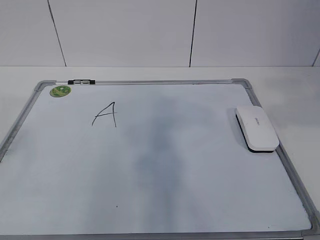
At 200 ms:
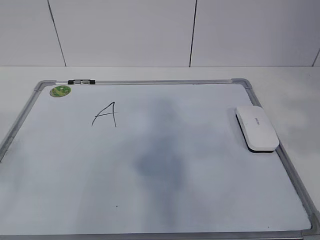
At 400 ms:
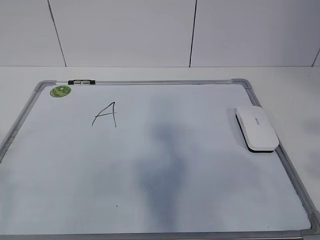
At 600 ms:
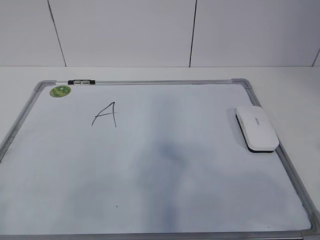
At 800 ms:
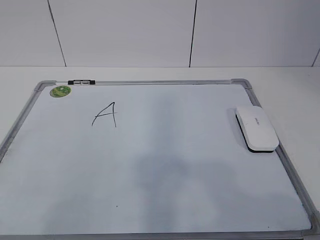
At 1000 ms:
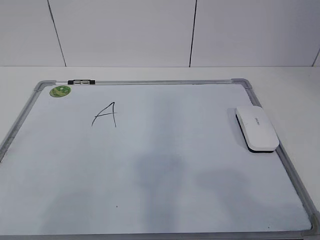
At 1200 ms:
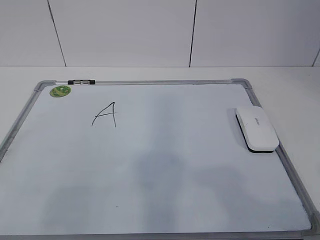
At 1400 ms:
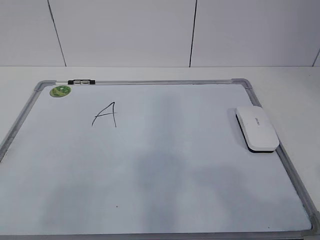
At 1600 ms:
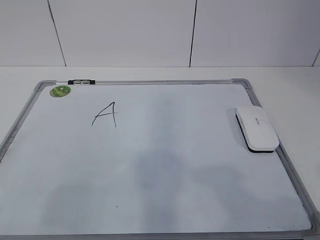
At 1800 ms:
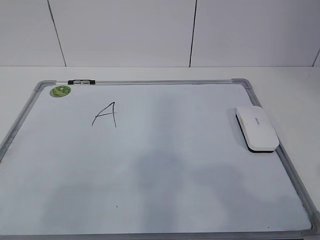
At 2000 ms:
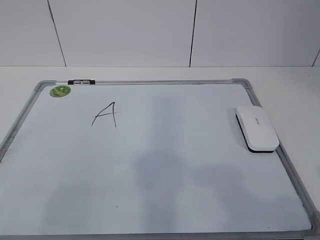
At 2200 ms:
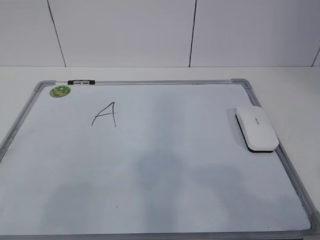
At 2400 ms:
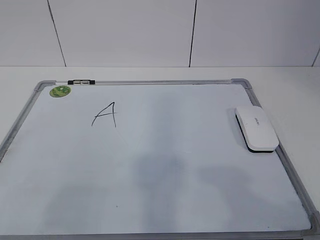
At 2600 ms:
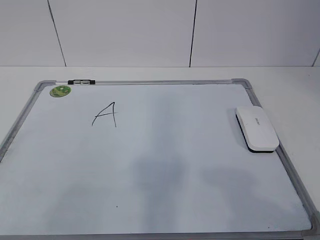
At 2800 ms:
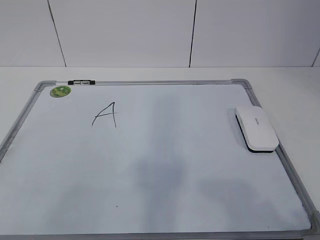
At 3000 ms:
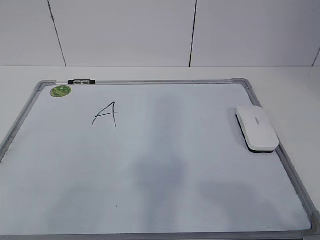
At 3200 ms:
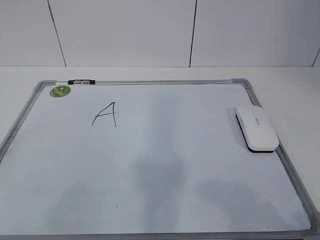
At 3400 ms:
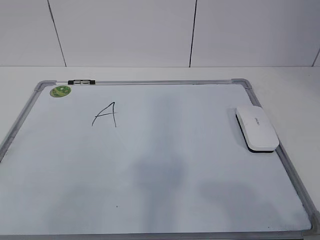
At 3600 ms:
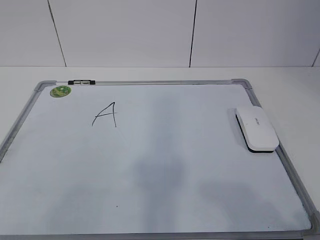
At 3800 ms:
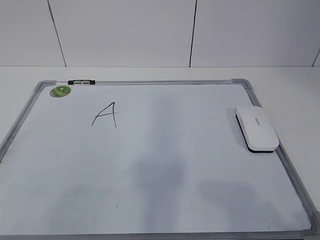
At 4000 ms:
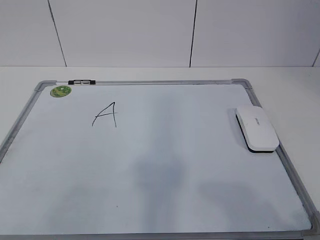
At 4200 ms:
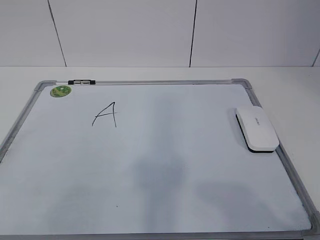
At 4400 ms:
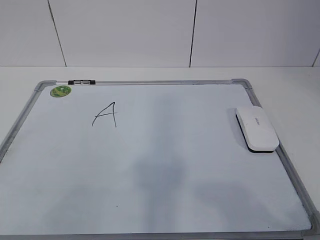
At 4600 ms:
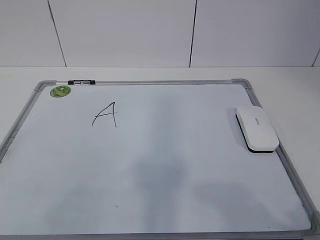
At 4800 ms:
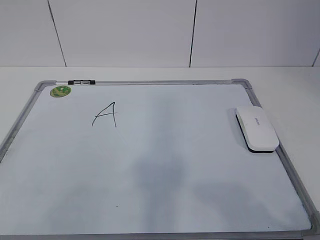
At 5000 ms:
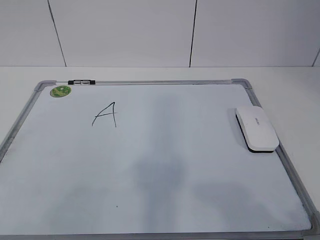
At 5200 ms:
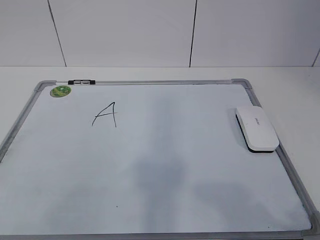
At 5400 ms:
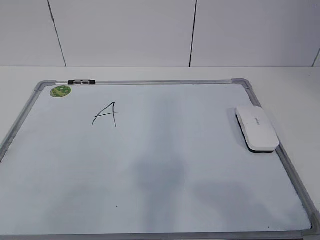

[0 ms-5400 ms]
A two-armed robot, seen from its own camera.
Task of the whole recording: pick up the eraser on the blackboard and erase the letter "a".
0 ms to 1400 ms: The two grippers go approximately 15 cm downward and backward.
2800 ms to 5400 ms: Both grippers stay about where they are.
